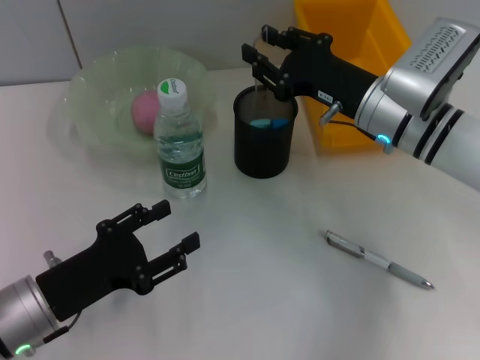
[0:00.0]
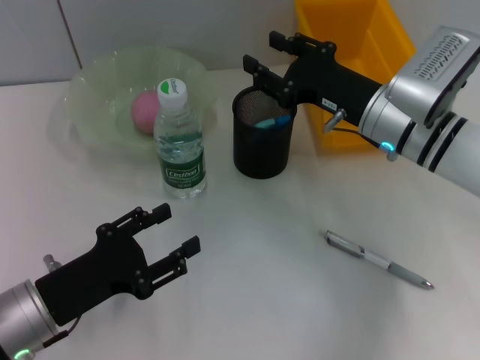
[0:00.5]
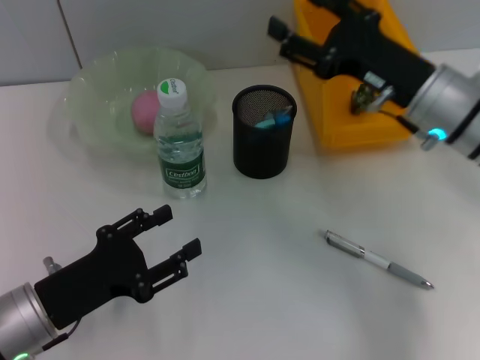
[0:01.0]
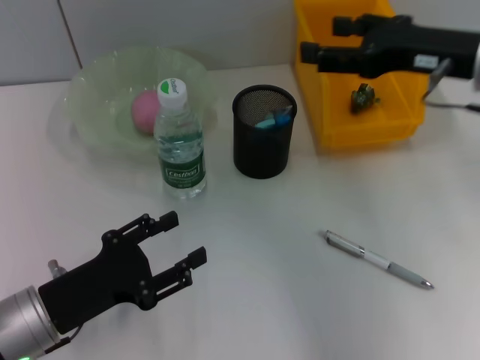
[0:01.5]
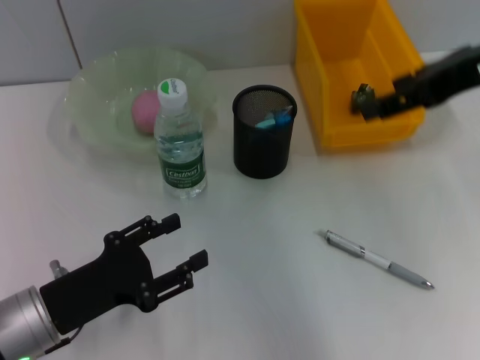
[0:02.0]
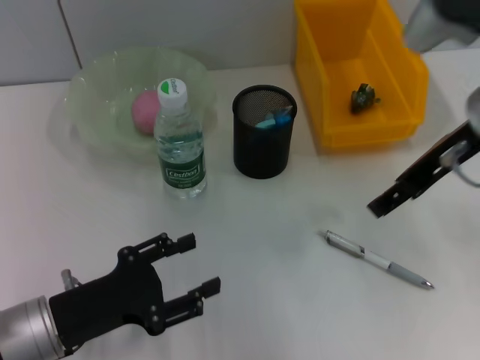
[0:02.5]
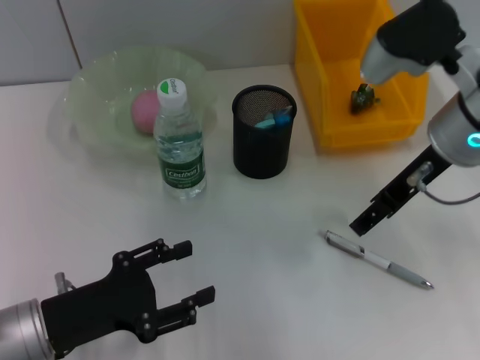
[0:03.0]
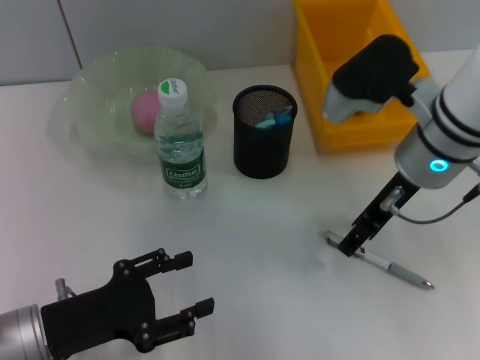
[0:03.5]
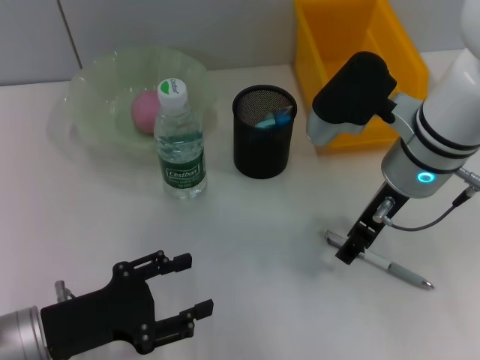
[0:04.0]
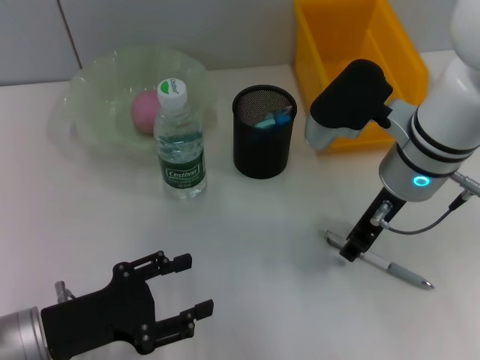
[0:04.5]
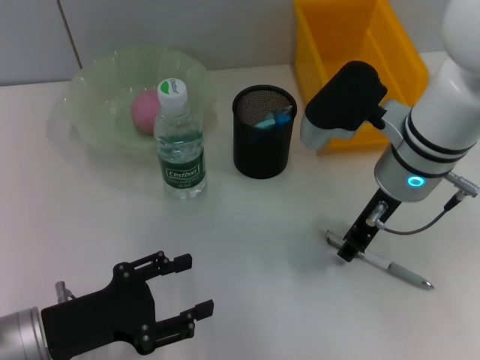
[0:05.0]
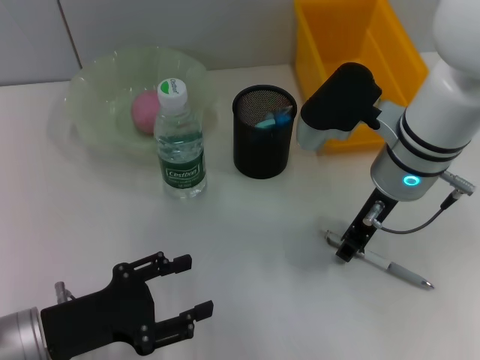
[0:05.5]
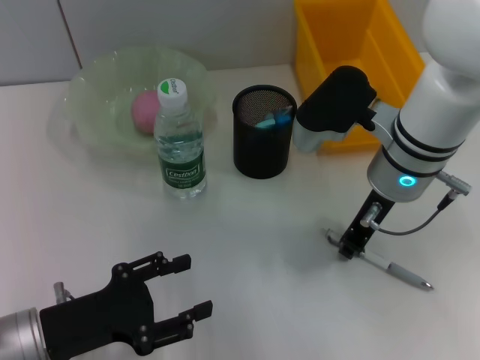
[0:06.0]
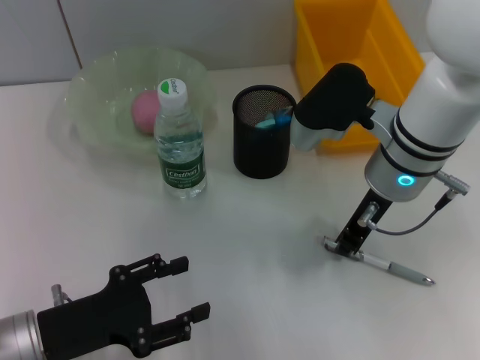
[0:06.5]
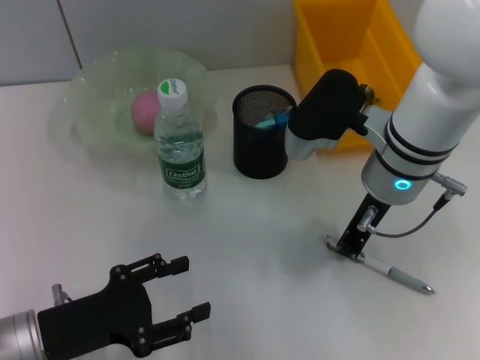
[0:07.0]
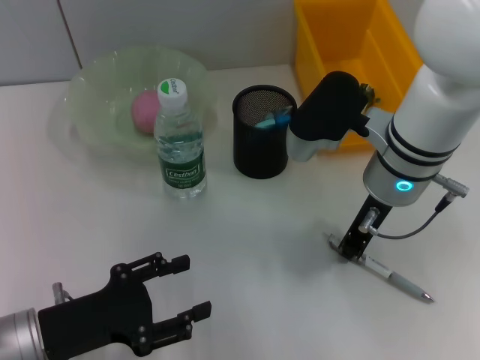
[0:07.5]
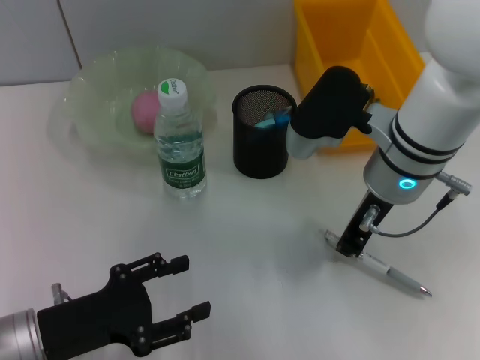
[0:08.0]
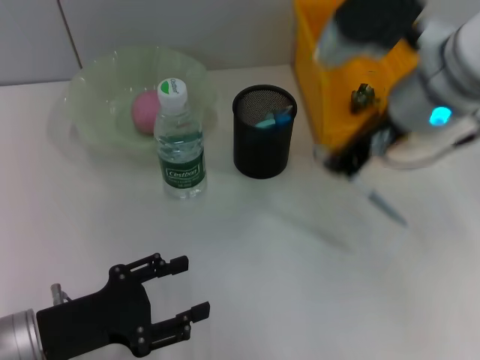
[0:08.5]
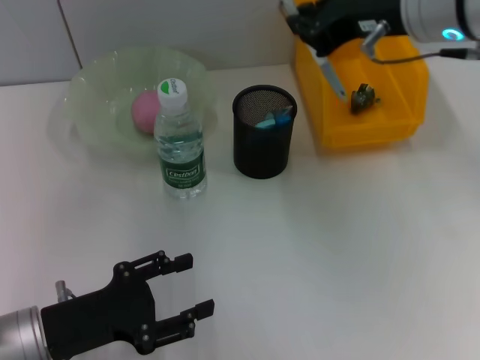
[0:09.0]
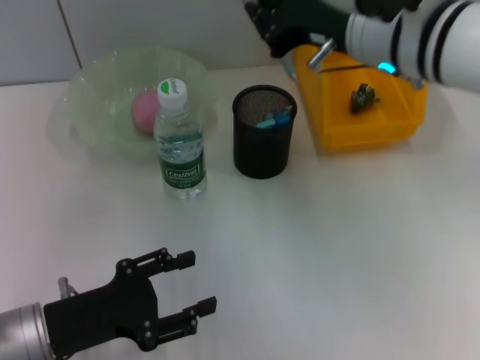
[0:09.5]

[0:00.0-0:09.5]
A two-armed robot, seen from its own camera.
Step, 0:01.0 to 0:07.5: Grab the gray spring-action pen with the right hand.
0:00.0 to 0:02.0: The right gripper shifts about 20 cm upward and to the right, and opens up.
0:02.0 to 0:04.0: The right gripper travels downward and to the left by approximately 15 cm.
0:04.0 to 0:05.5: The right gripper closes up.
0:05.5 to 0:07.5: Both grippers stay put.
0:07.5 to 0:09.5: The right gripper heads upward, covering some 10 cm.

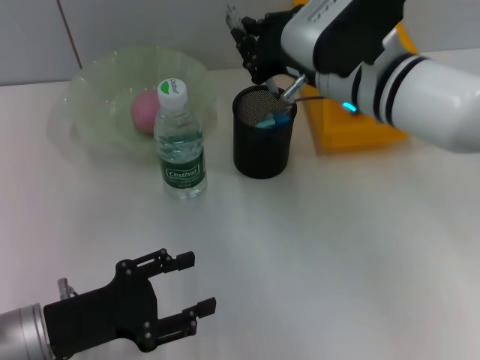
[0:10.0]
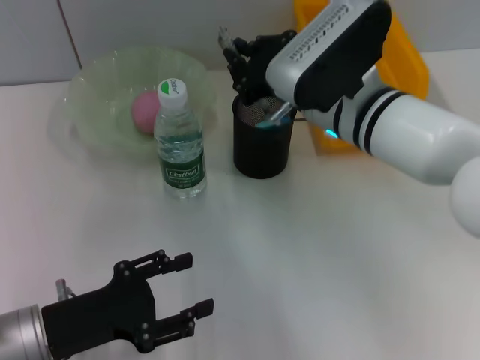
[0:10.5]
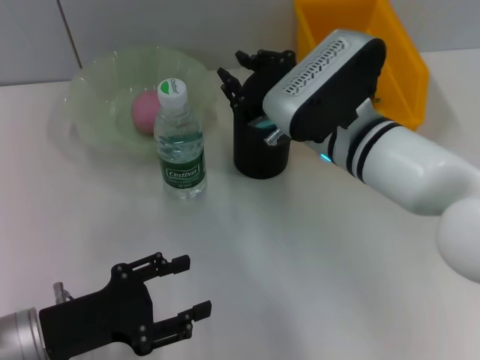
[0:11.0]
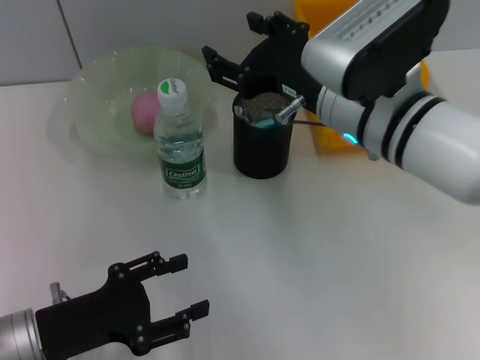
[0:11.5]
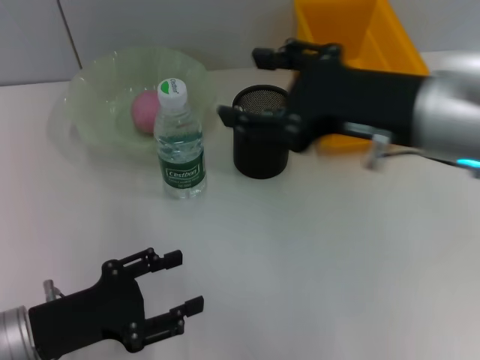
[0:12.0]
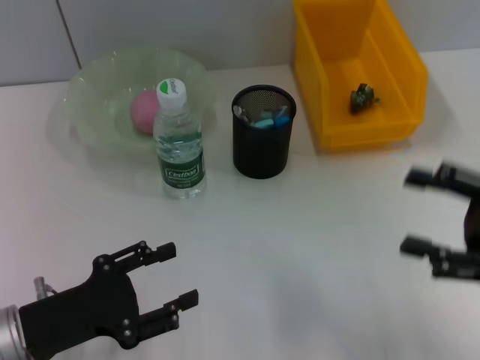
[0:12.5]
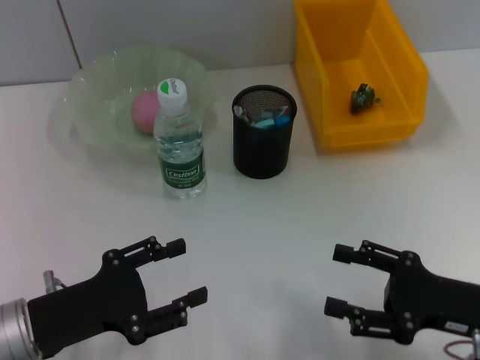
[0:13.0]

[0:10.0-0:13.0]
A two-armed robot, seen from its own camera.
0:10.0 to 0:11.5: The right gripper opens its fingers.
0:11.5 to 0:13.0: The right gripper travels to the right, downward and backward by approximately 25 cm.
